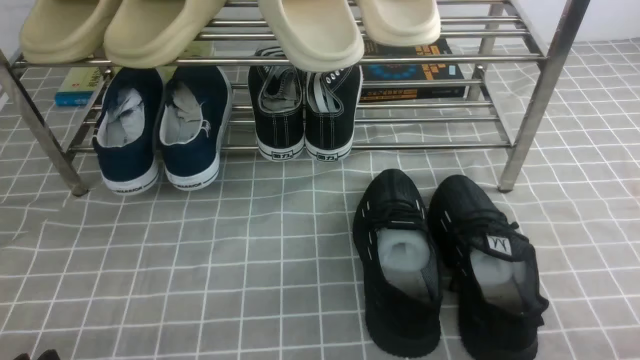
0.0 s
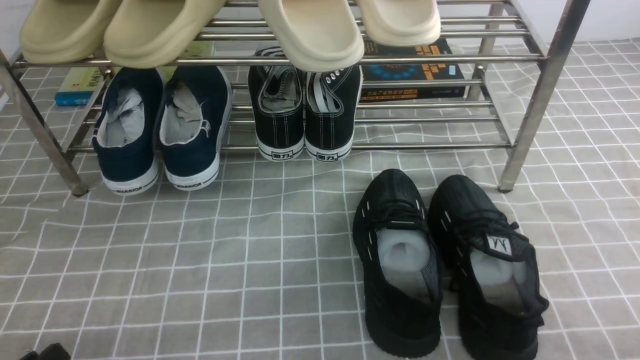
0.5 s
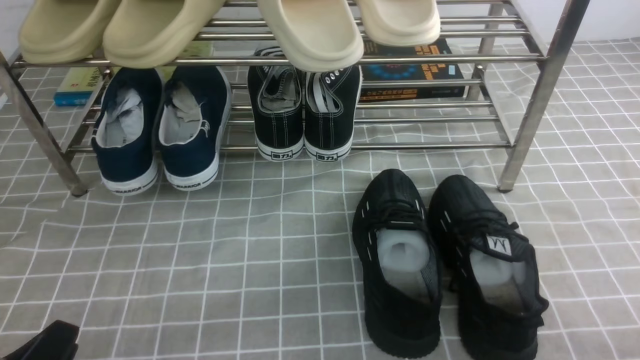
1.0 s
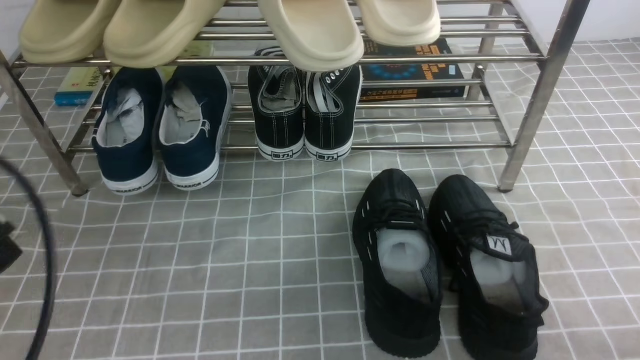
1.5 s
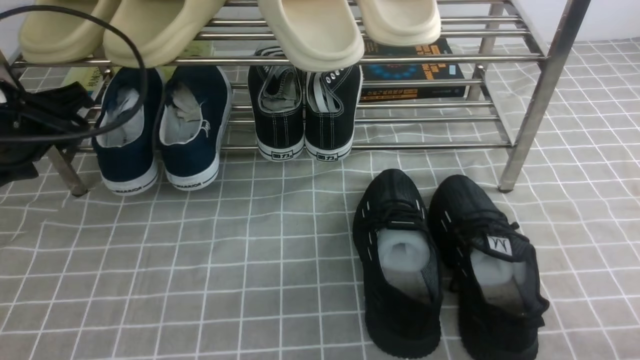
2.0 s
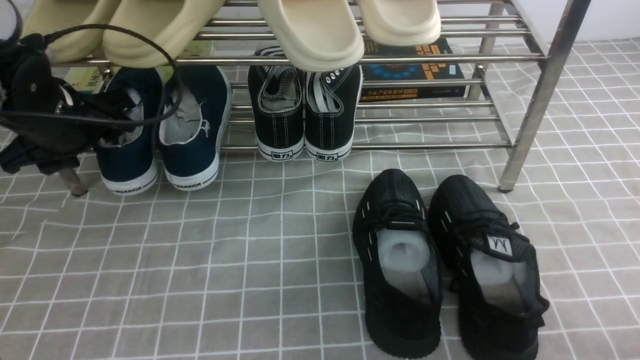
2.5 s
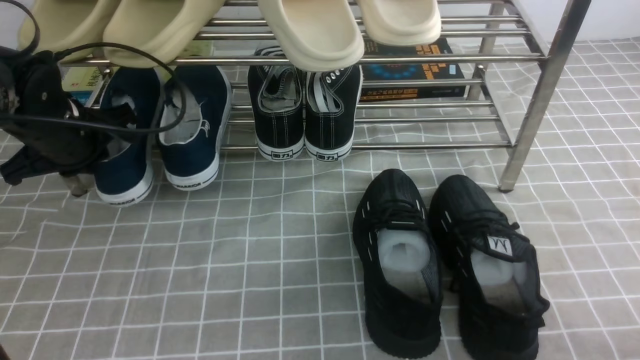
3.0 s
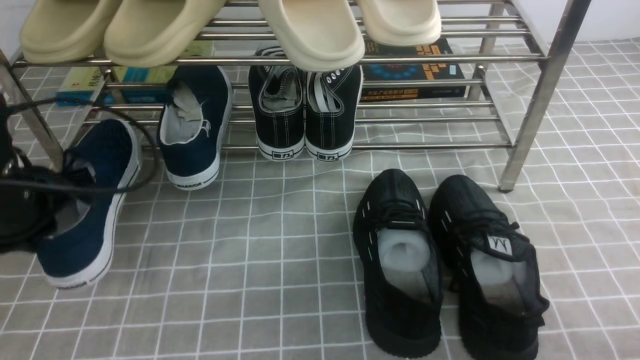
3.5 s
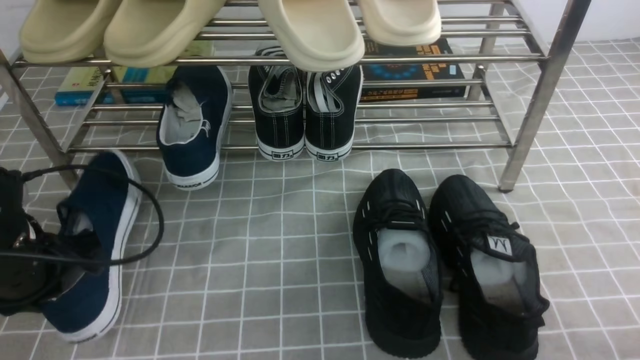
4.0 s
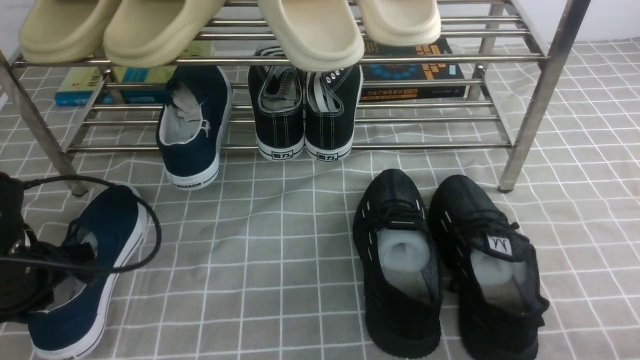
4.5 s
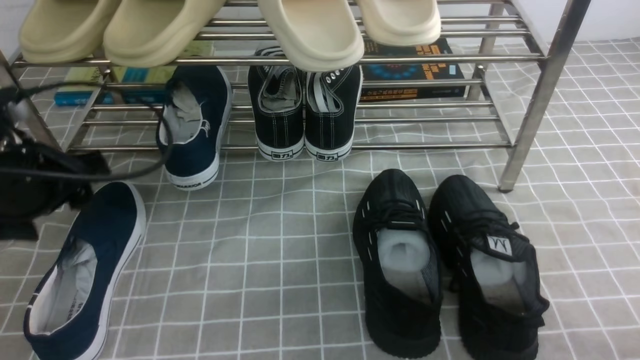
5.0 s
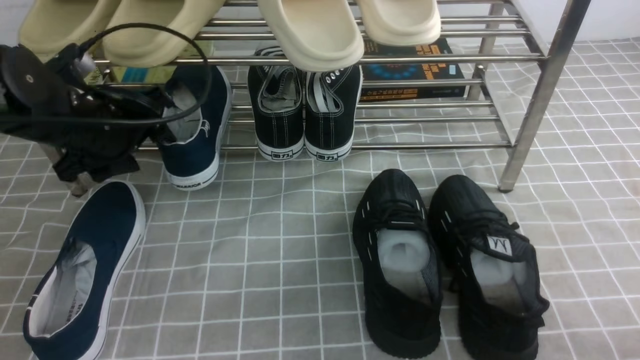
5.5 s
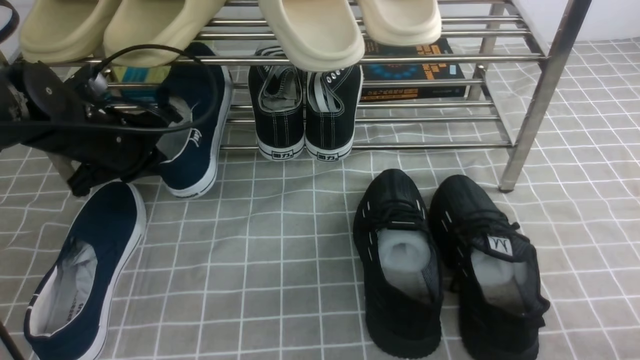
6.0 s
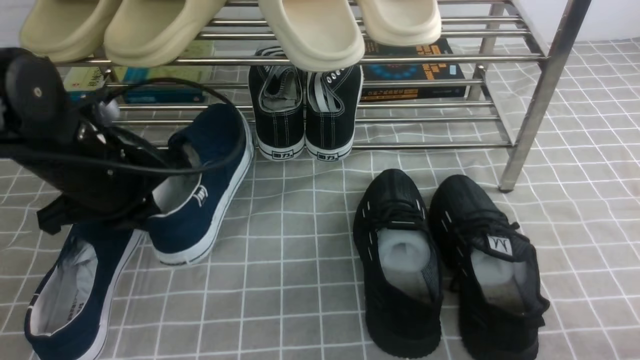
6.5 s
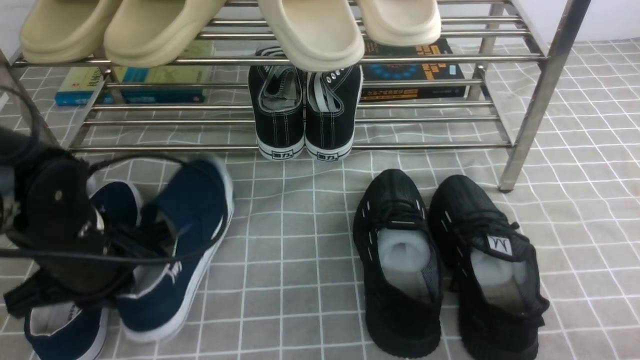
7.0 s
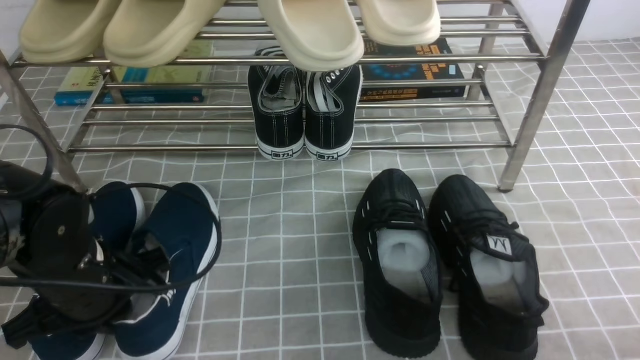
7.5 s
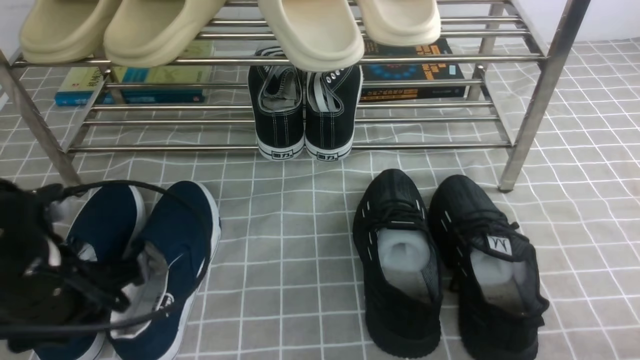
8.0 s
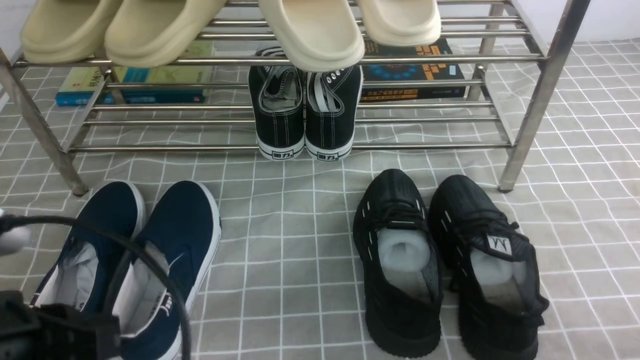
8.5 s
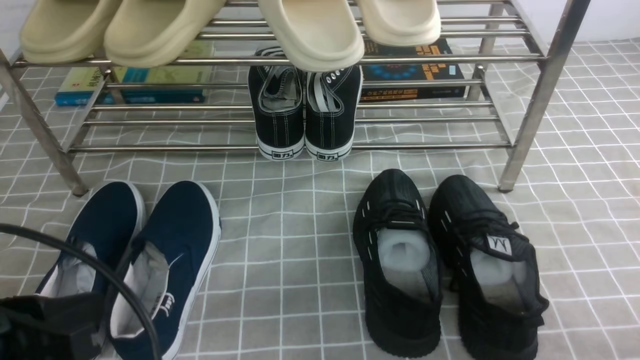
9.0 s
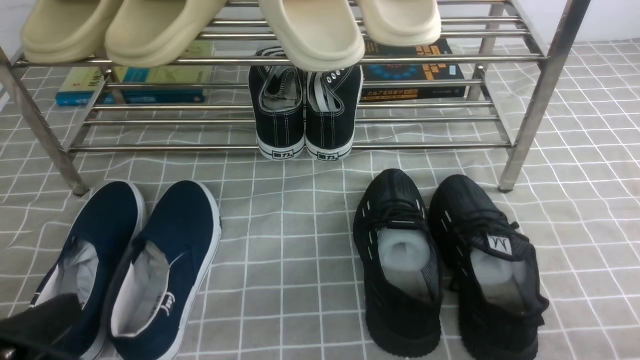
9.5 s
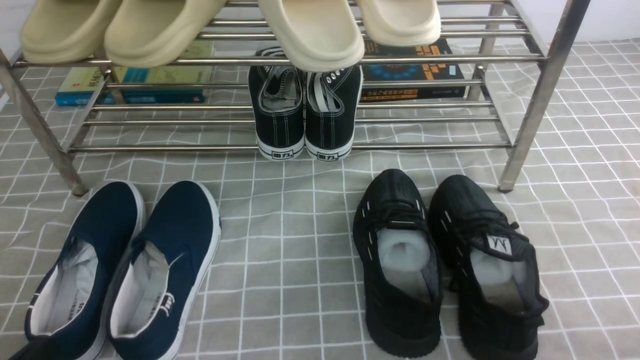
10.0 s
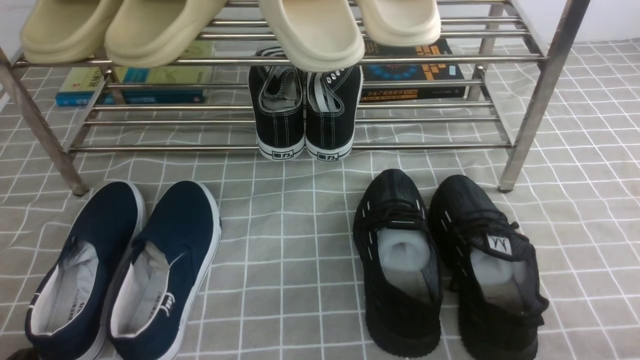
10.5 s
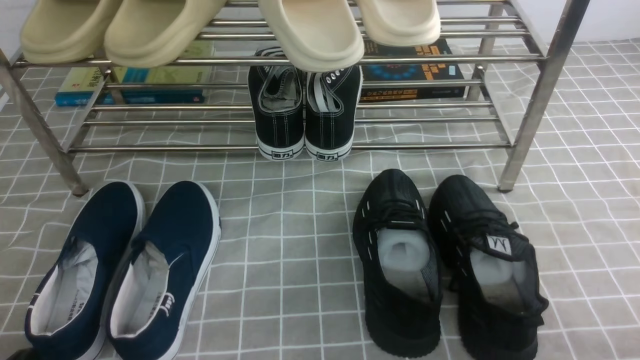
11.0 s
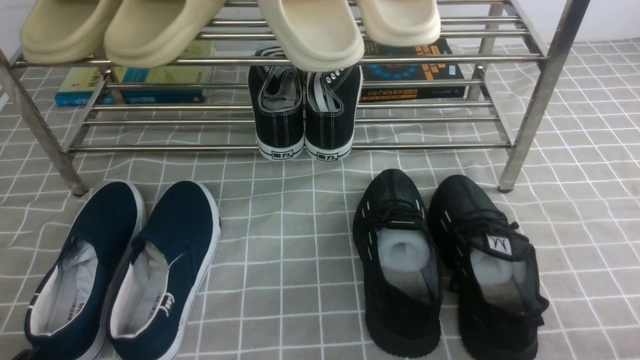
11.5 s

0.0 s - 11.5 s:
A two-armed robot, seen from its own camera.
Step, 0.0 s - 3.0 s: use the left arm to clamp a shoe on the left side of the shoe rack.
Step, 3.5 s - 4.0 s: Use your left arm to remove the clamped shoe from the shoe rack and put it down.
Step, 4.5 s - 6.0 s: use the left arm to clamp a shoe on the left side of the shoe rack.
Step, 6.5 s - 8.0 s: Use your left arm to remove the clamped shoe from the shoe rack and put it down.
0.0 s - 2.0 s: The left gripper goes some 30 cm forward and upward.
2.0 s - 4.0 s: The left gripper moves downward, about 10 cm, and closes up.
4.0 s - 6.0 s: The left gripper shifts approximately 10 cm forward, and opens, then closes once more.
6.0 s - 7.5 s: The left gripper heads backward, covering some 15 cm.
7.5 s - 9.5 s: The left gripper moves backward, some 15 cm.
9.5 s - 11.5 s: The left gripper goes approximately 5 cm downward.
